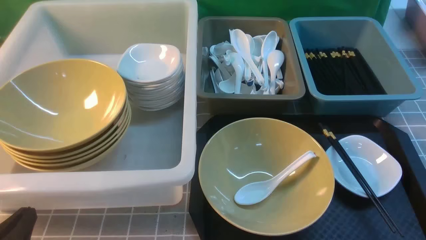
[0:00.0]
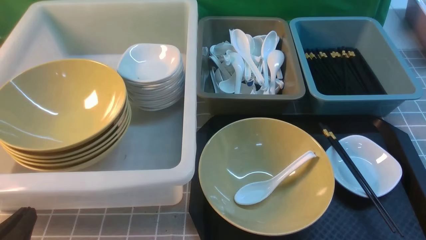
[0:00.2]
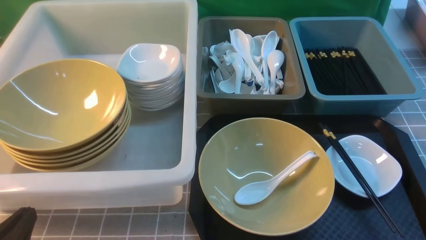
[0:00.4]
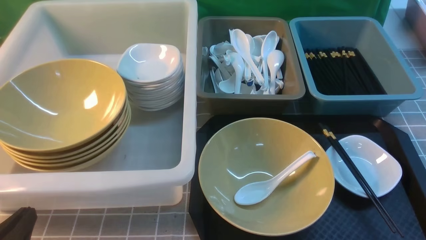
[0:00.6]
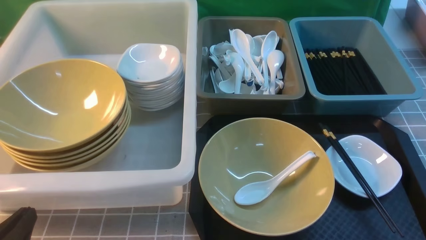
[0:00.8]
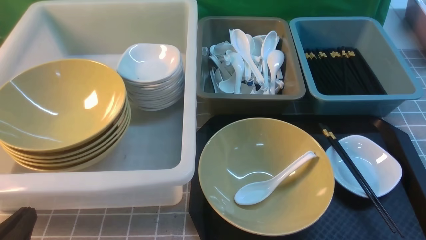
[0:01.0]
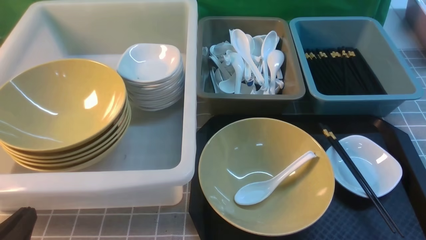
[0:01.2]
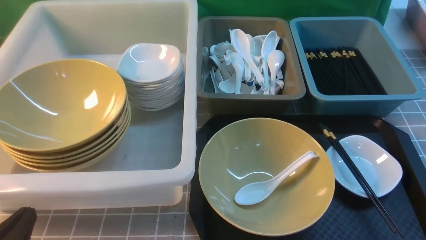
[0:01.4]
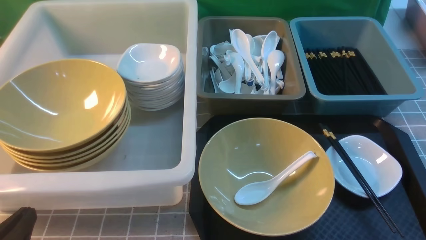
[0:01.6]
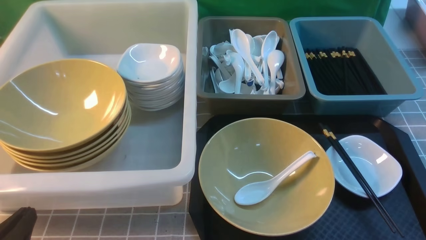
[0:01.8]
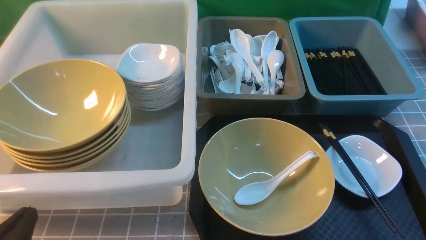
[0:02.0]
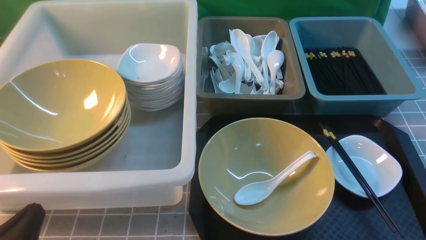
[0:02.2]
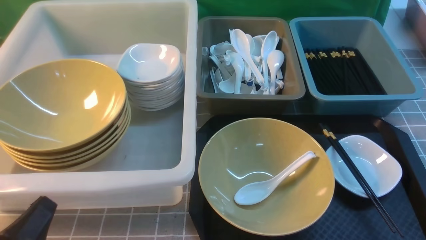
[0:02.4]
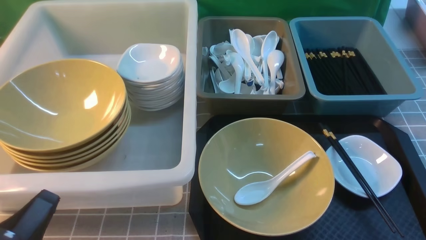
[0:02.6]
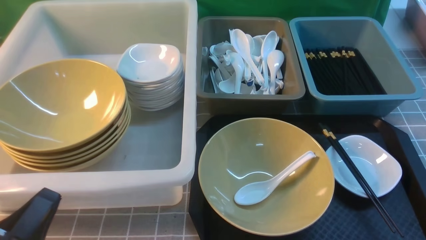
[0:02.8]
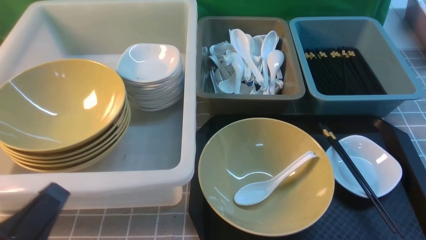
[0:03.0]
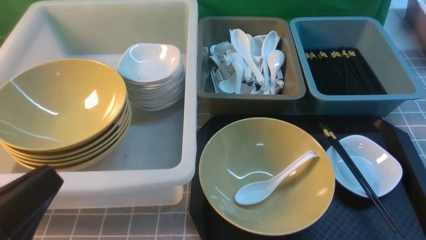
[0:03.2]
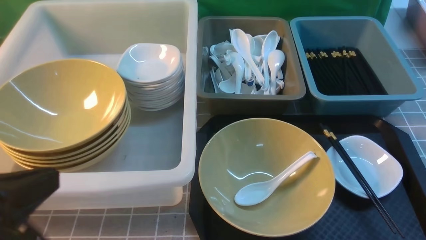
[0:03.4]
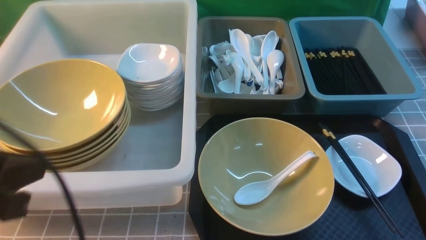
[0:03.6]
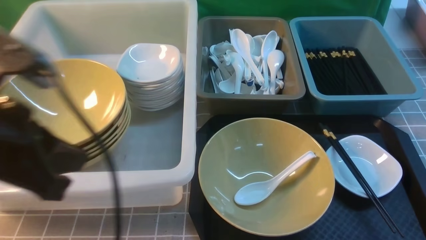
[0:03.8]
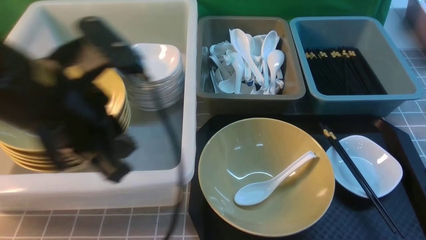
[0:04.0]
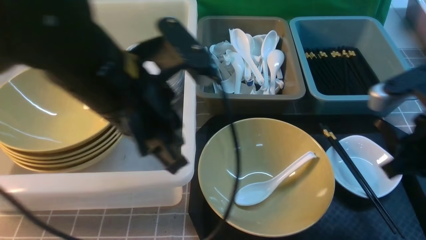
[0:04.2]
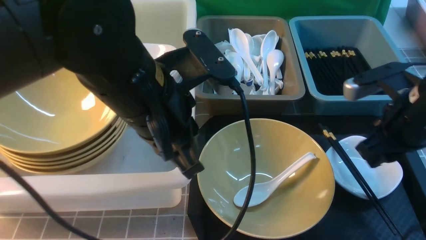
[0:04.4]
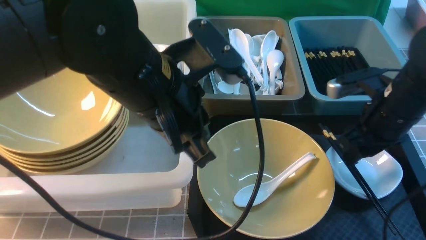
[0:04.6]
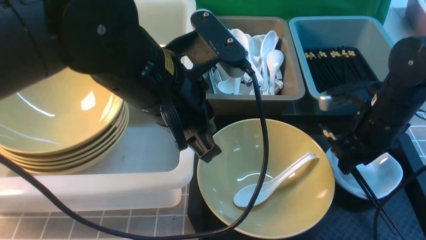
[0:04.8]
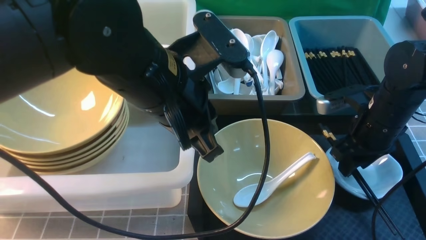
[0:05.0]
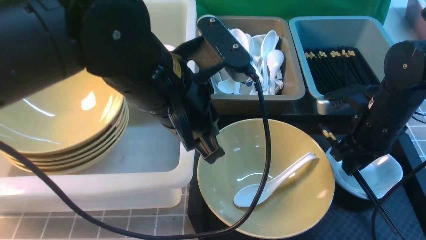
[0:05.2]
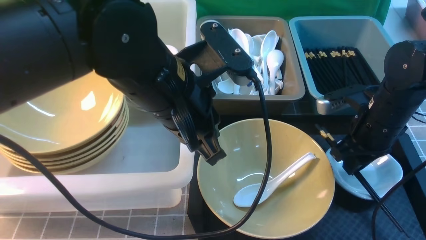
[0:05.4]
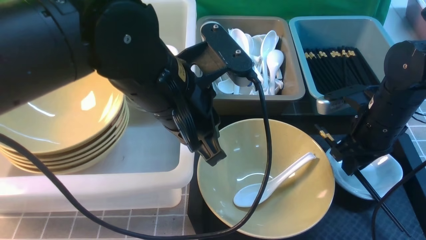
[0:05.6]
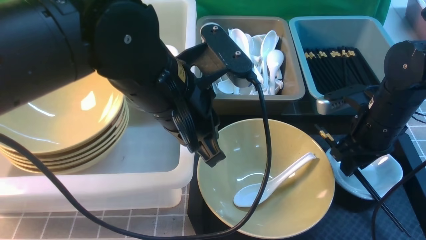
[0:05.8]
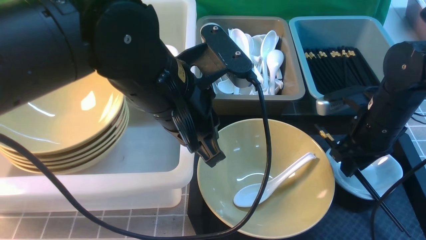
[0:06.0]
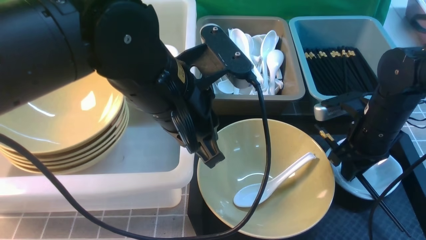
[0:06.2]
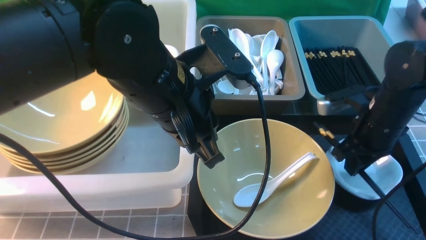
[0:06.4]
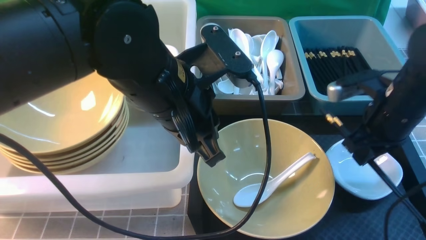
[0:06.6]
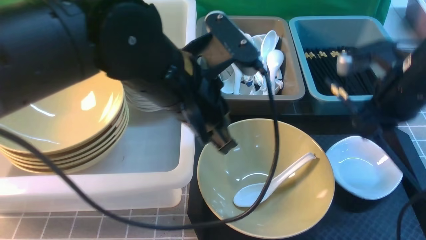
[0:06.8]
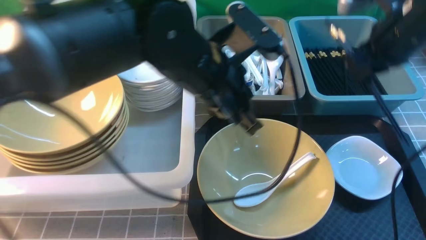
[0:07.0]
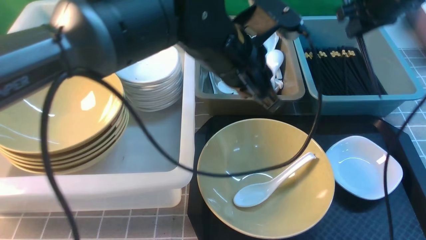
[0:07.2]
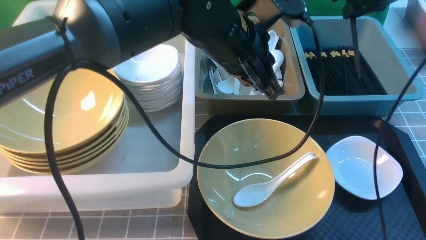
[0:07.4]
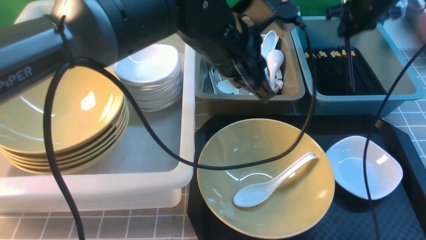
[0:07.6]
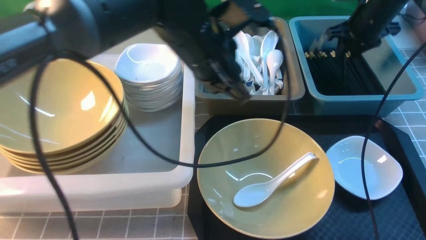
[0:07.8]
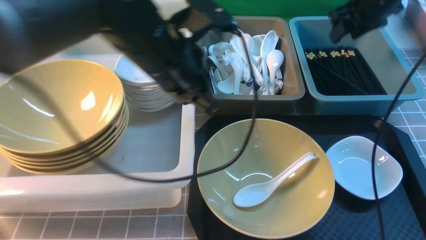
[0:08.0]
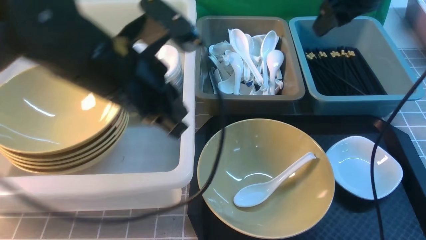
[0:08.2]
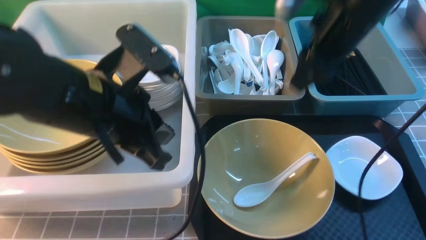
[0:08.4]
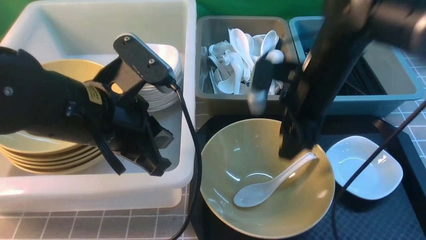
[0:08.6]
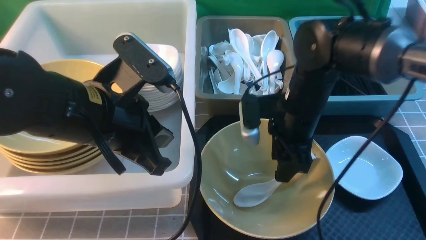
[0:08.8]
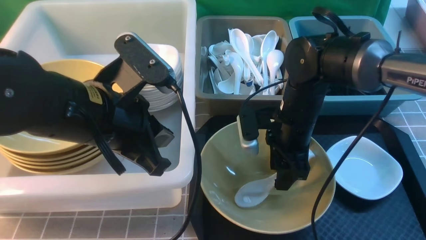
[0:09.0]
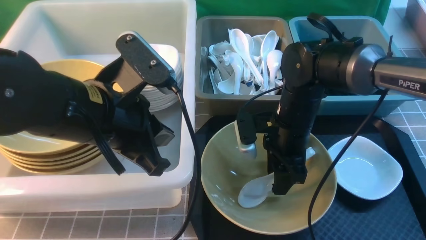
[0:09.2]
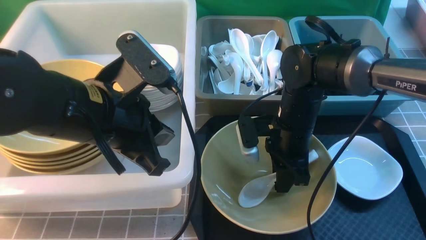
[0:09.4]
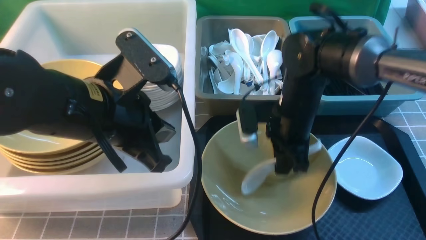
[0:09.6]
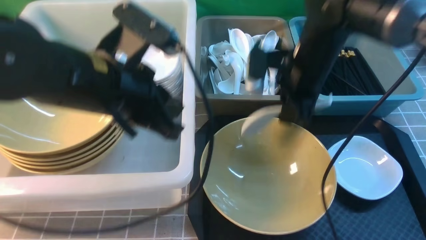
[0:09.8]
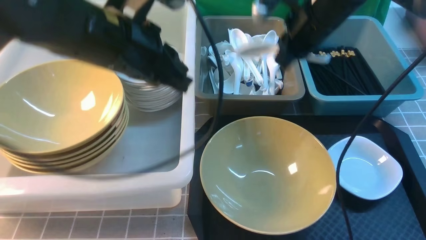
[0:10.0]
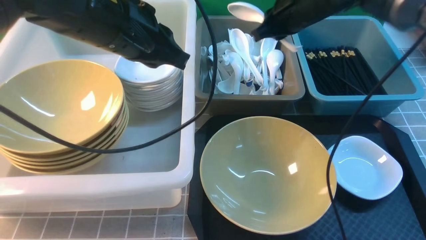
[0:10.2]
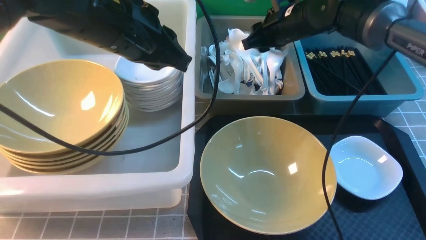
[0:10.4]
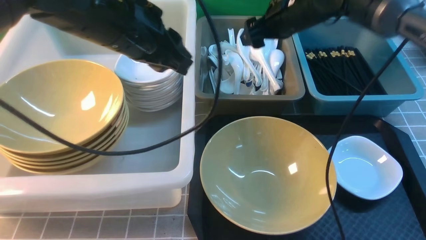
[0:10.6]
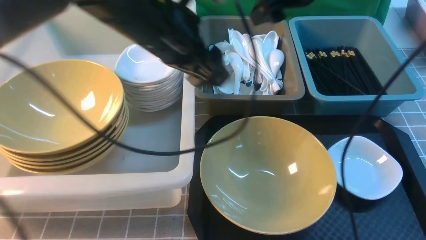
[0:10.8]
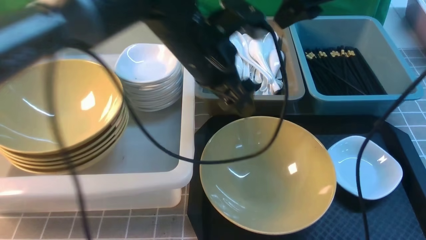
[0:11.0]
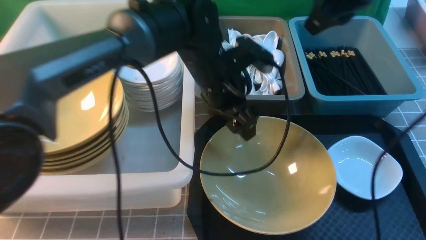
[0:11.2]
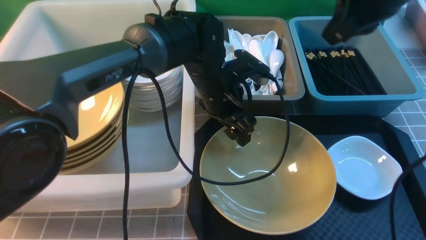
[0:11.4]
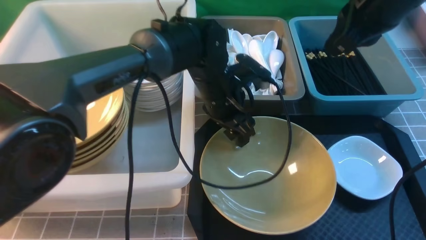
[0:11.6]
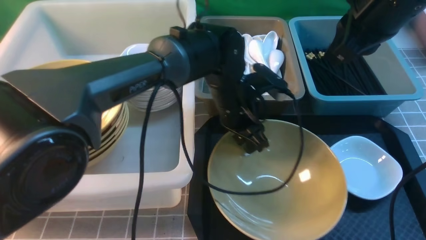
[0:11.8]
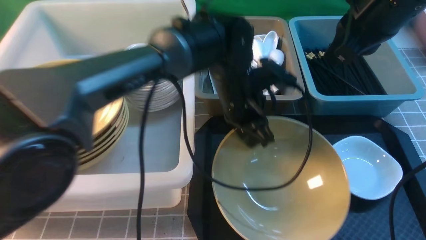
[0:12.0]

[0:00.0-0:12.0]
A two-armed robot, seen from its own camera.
Task of the whole recording: on grey table put chopsticks spoon bowls plates into blue grey white boxes.
Step, 0.0 to 6.4 s: use the right arm to grab the chopsticks.
Step, 6.6 to 8.0 s: use the right arm to put the chopsticks into the small storage box on the right.
Step, 8.2 to 9.4 s: use the right arm to grab the soup spoon in the middle.
Step, 9.6 to 10.6 s: use the right arm to put the soup spoon into the small storage box in the middle.
0.0 to 1.6 s: The two grippers keep their place.
1.6 to 3.0 s: The left gripper is displaced upward by about 5 cm.
3.0 to 4.4 s: The left gripper goes roughly 25 cm forward, to the right and upward. The right gripper is displaced forward by approximately 25 cm, and closes, then reopens.
4.4 to 6.0 s: The right gripper heads downward and forward, covering about 10 cm.
6.0 to 7.6 s: The right gripper heads forward and upward, covering roughly 20 cm. Meanwhile the left gripper moves forward, about 10 cm.
7.6 to 9.0 s: The right gripper heads to the left, backward and downward, covering about 25 cm, and opens, while the left gripper goes about 15 cm to the left and backward.
9.0 to 10.4 s: The left gripper goes some 10 cm forward. Meanwhile the right gripper heads forward and upward, covering some 15 cm, and closes, then opens again.
10.4 to 12.0 s: The left gripper heads to the right and downward, covering some 15 cm, and opens, then closes again; the right gripper goes roughly 20 cm backward and upward, and closes its fingers.

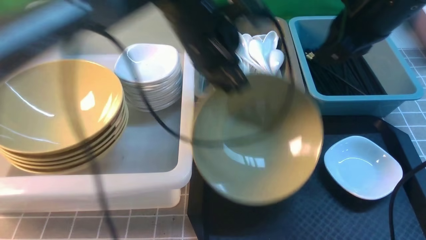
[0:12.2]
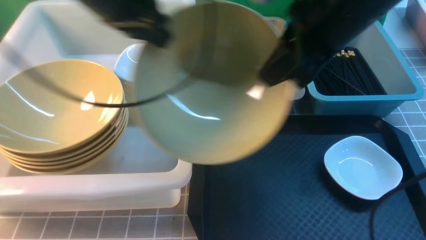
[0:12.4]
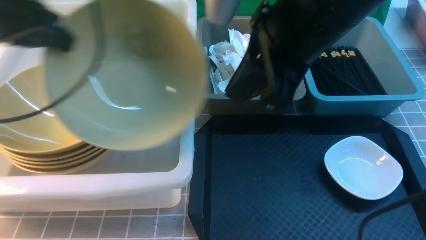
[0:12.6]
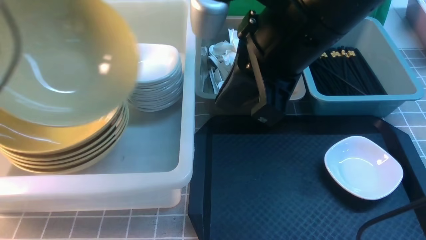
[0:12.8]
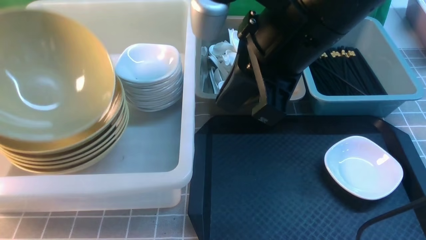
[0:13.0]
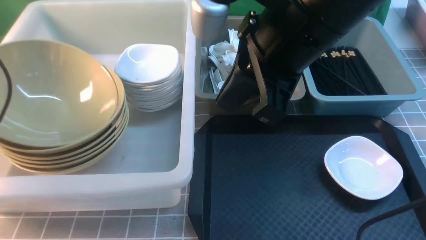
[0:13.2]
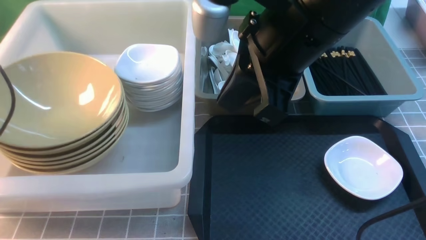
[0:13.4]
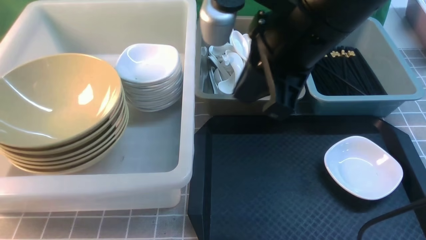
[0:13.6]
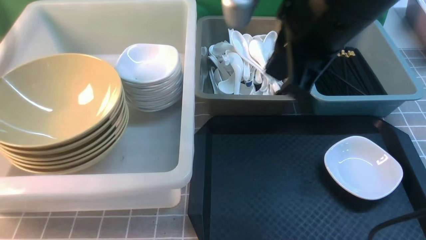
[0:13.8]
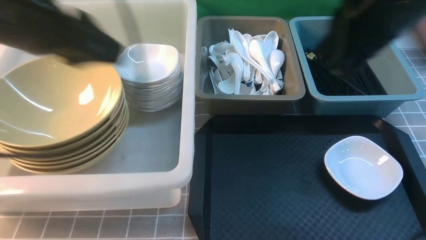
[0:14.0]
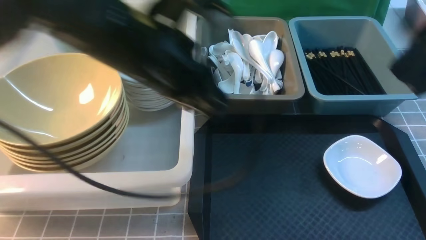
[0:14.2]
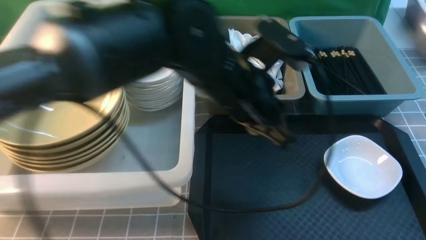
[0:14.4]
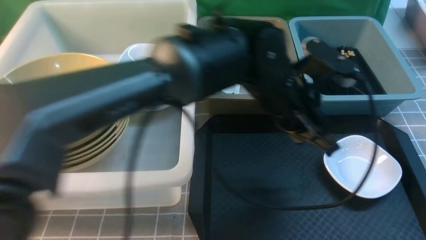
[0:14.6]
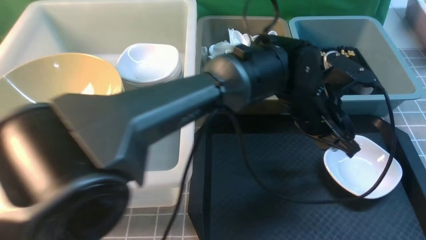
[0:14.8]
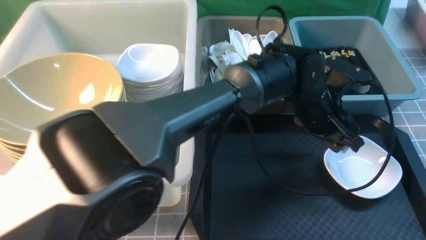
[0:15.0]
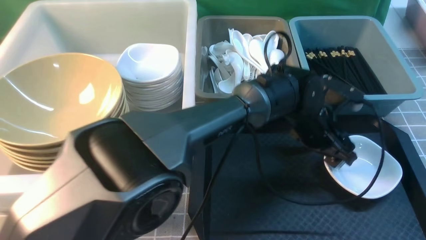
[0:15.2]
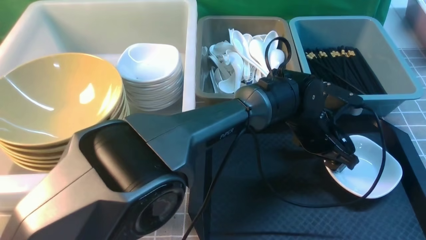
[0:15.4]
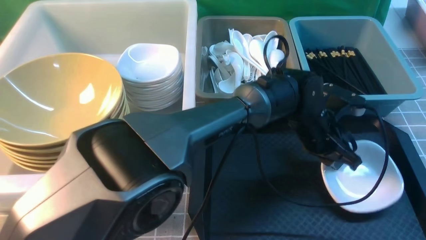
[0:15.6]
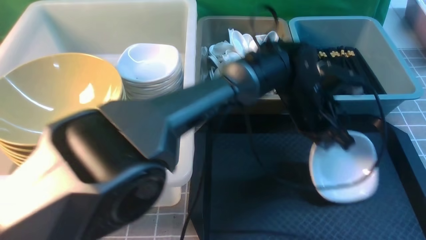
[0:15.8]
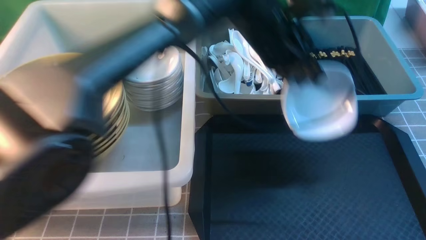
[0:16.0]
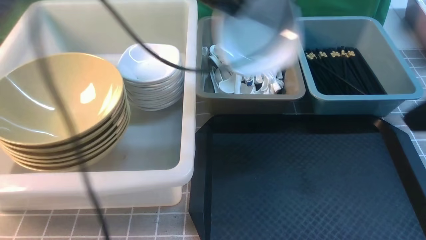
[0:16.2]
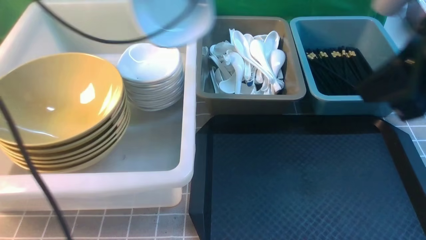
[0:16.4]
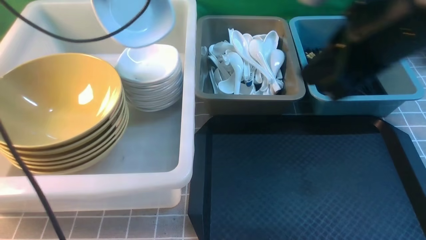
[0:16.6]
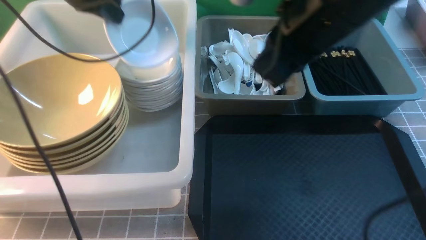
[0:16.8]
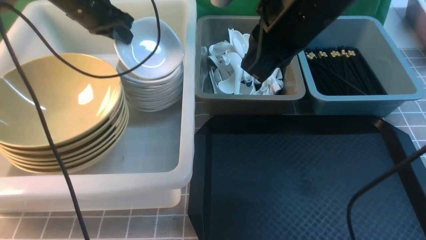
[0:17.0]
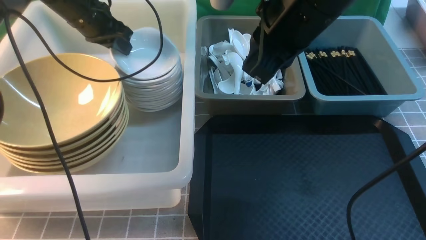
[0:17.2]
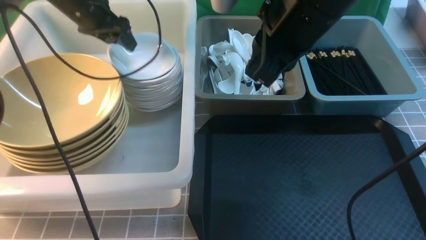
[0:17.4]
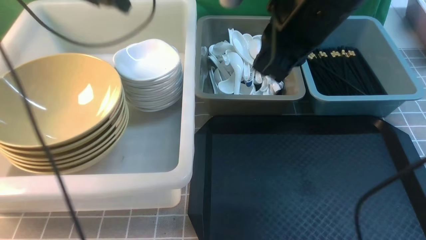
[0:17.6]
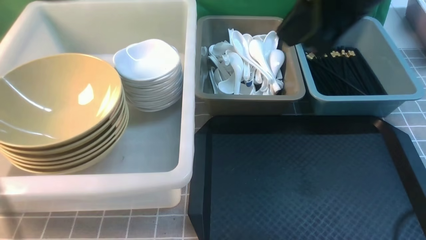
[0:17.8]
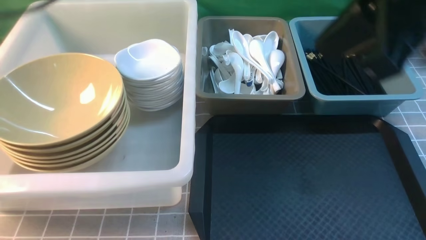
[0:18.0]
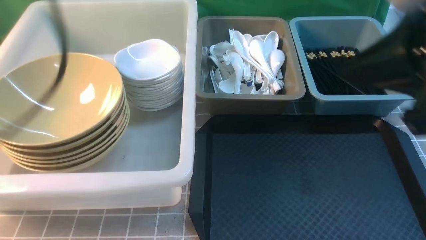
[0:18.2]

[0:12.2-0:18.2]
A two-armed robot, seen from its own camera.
Task of the whole recording: on grey table put chopsticks spoon bowls plates into blue grey white boxes.
Step, 12.4 to 13.6 s: use the left arm to put the noodle bowl into the large storage box on the left.
Step, 13.8 to 15.8 s: use the left arm to grab the plate.
Step, 16.0 to 17.4 s: use the left arm to put the plate into the large storage box on the left.
12.2 to 13.8 s: The left gripper heads to the left and backward, covering approximately 20 cm, and opens its fingers, while the right gripper goes approximately 5 cm backward.
13.8 to 15.2 s: The right gripper shifts about 20 cm to the right and backward. The left gripper shifts roughly 50 cm to the right and downward, and closes and opens again.
15.2 to 16.6 s: The right gripper moves to the left and forward, approximately 20 cm; the left gripper heads to the left and upward, covering about 40 cm, and closes its fingers.
16.6 to 18.2 s: The right gripper is displaced backward by some 10 cm; the left gripper moves backward, some 30 cm, and opens, then closes once more.
